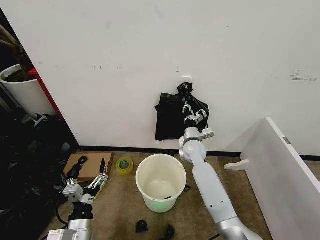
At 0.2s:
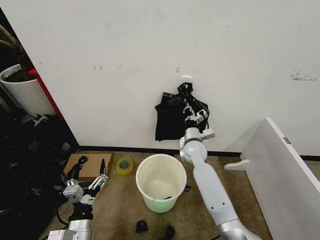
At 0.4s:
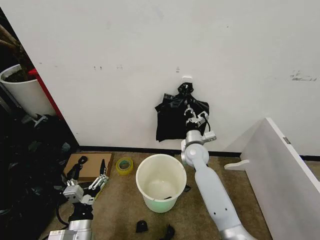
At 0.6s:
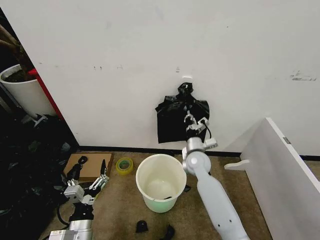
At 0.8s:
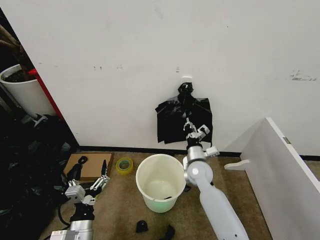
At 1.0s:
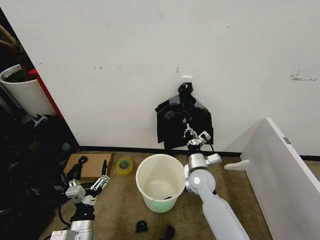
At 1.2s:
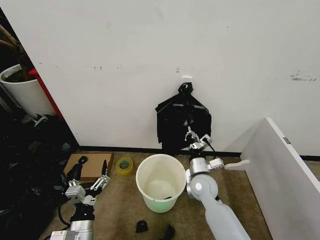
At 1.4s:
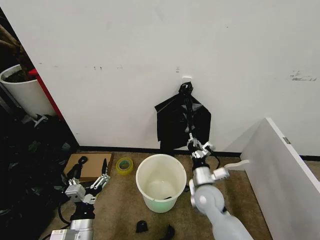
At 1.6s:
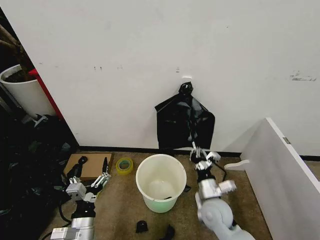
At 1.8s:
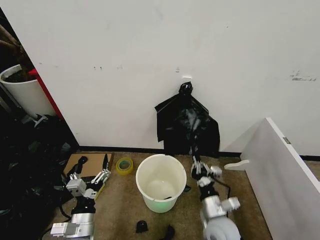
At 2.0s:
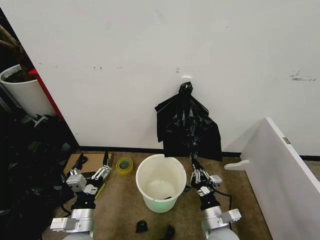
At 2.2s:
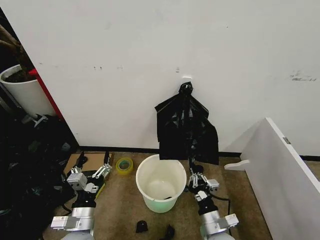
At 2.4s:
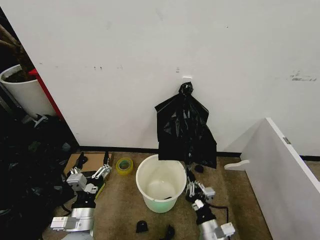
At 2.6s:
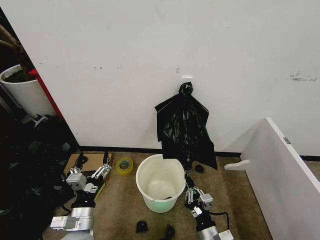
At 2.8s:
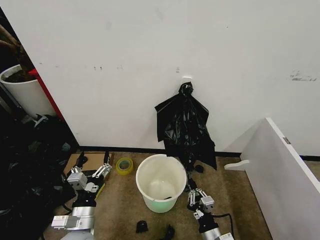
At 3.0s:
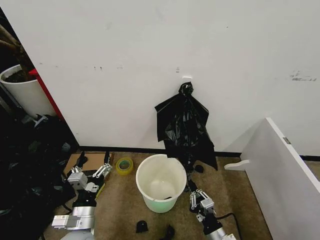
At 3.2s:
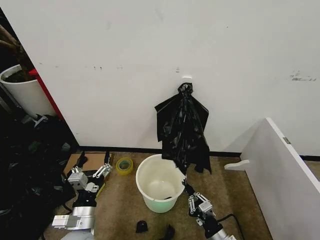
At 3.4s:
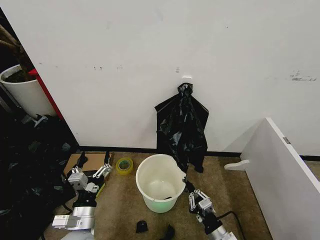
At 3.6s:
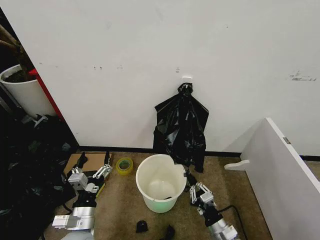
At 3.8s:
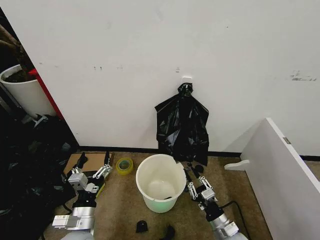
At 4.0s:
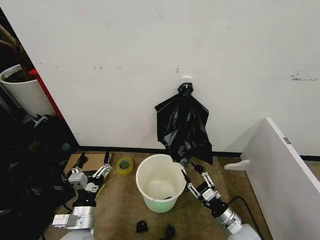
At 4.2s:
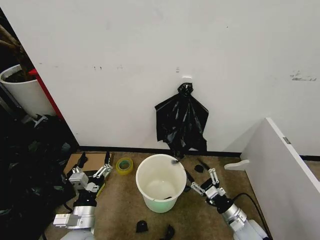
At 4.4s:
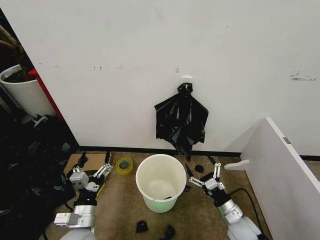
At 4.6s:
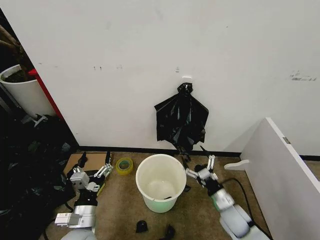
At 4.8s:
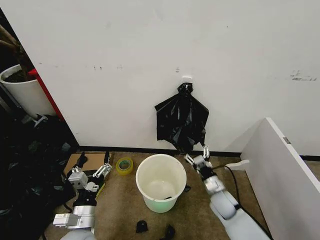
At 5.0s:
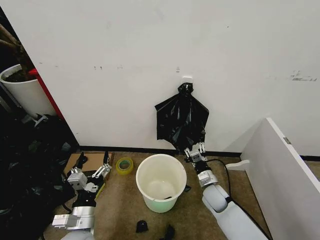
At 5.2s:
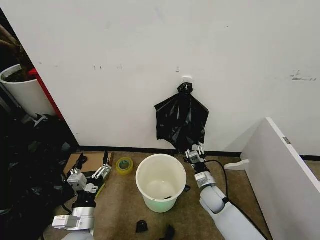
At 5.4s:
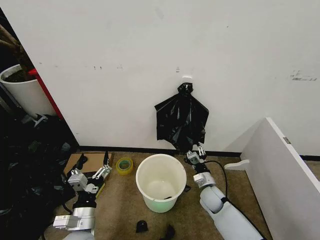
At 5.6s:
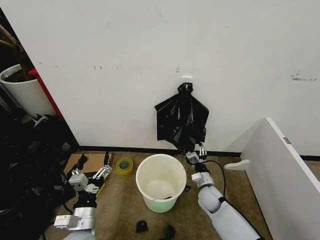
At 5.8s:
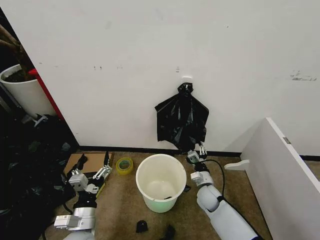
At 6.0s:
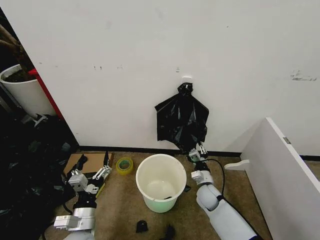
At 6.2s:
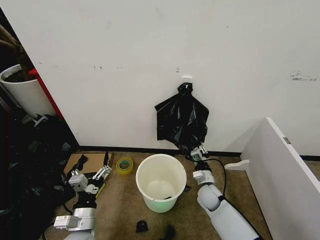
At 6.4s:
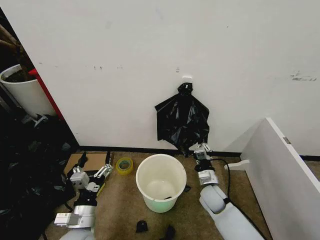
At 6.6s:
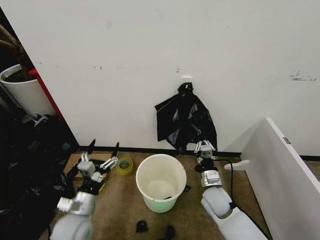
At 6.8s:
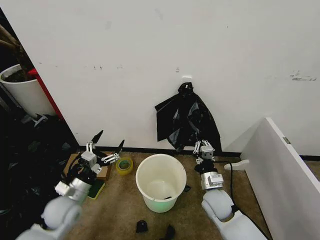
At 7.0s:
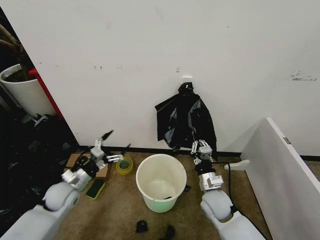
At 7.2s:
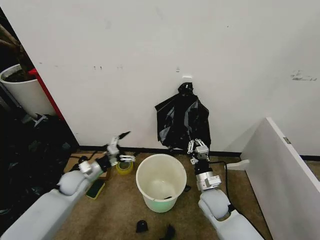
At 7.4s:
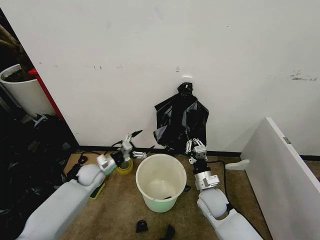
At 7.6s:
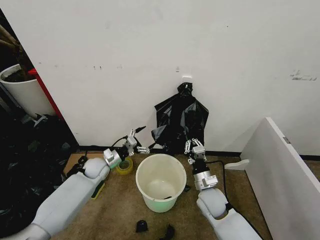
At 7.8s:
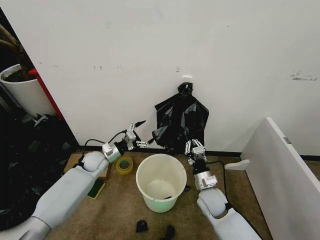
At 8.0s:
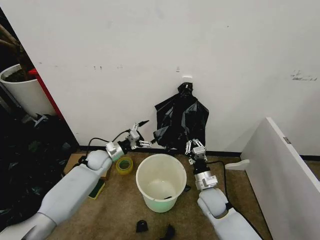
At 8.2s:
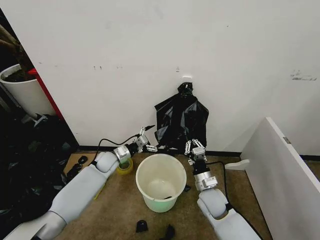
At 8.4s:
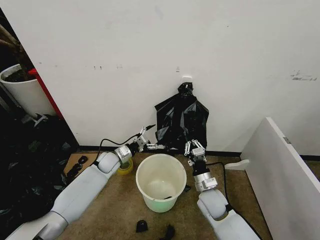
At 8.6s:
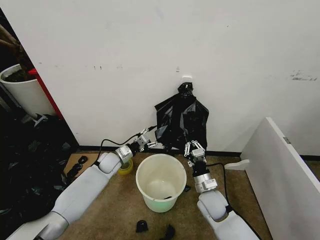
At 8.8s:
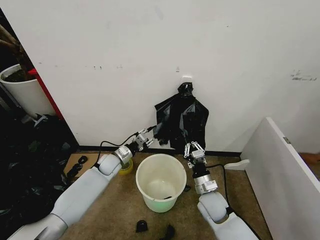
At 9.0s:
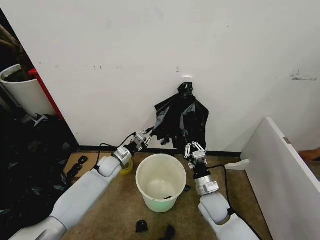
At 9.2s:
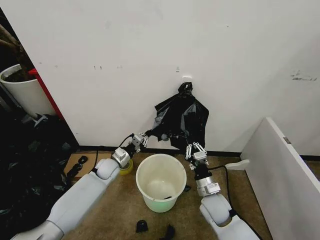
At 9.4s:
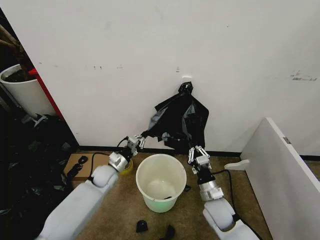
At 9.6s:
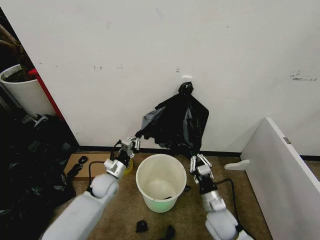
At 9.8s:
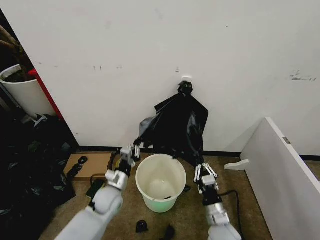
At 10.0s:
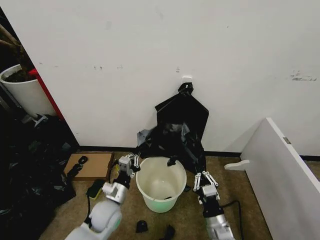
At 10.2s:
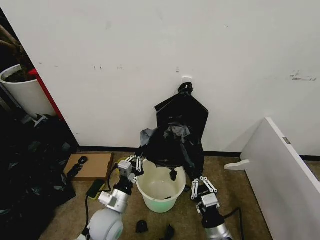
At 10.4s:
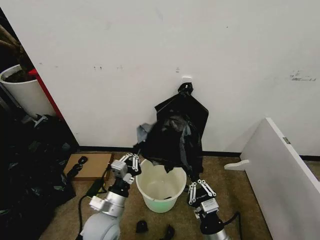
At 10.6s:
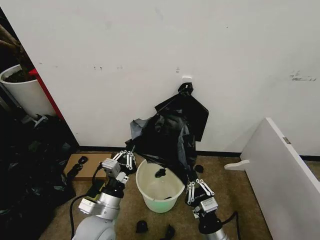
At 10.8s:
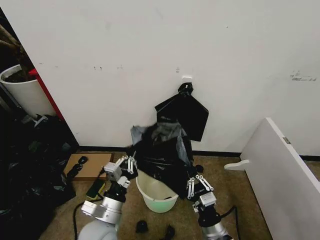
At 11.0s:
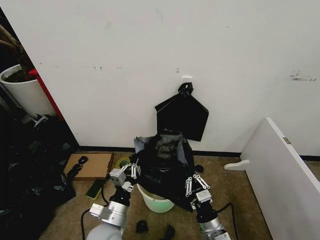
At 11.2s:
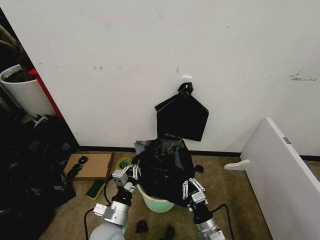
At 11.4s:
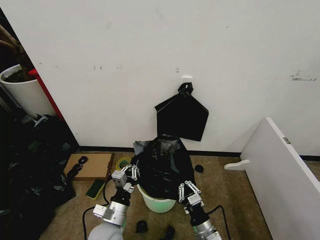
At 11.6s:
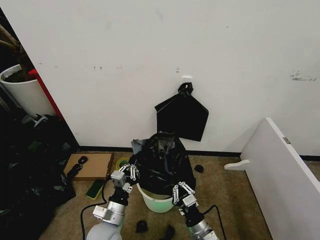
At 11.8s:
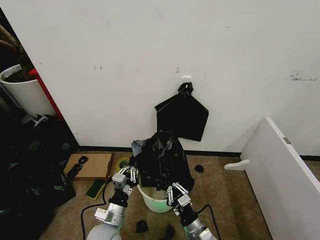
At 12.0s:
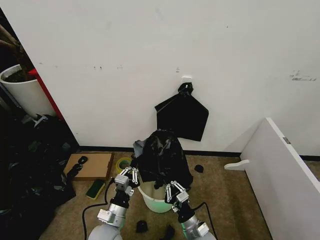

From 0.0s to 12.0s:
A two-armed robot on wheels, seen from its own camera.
Task of the whole recording: Place the garbage bag over the trash bin.
From 0.0s to 1.6s: The right gripper moves backward, about 20 cm.
From 1.6s to 3.0s: The right gripper moves backward and downward, approximately 15 cm.
From 3.0s to 4.4s: The right gripper is displaced forward and to the right by roughly 10 cm, and opens up.
From 4.4s to 6.0s: The right gripper travels forward and to the left by some 15 cm, and closes its fingers.
From 6.0s to 7.6s: The left gripper heads forward, covering about 25 cm. The right gripper moves upward, approximately 10 cm.
From 7.6s to 9.0s: The left gripper changes place by about 5 cm, and closes.
From 9.0s to 10.4s: Both grippers travel together backward, roughly 20 cm.
From 10.4s to 12.0s: The right gripper goes roughly 10 cm downward and forward. The left gripper is displaced downward by about 5 cm.

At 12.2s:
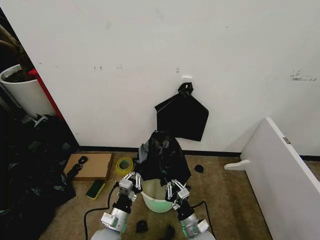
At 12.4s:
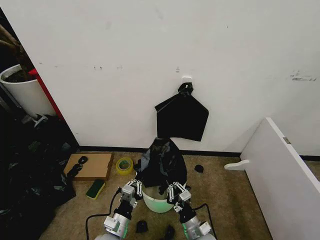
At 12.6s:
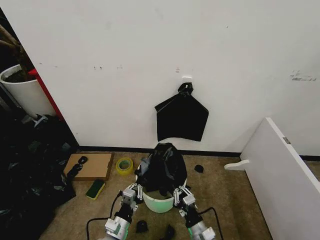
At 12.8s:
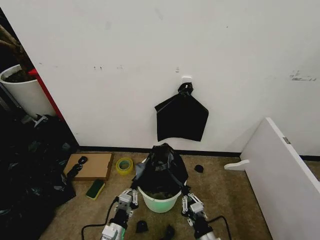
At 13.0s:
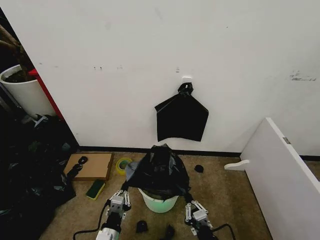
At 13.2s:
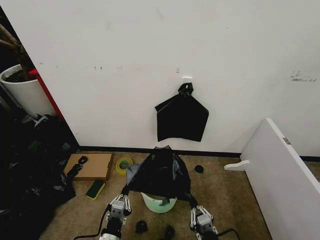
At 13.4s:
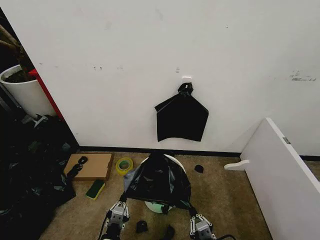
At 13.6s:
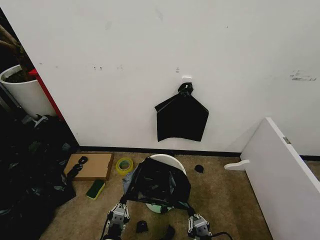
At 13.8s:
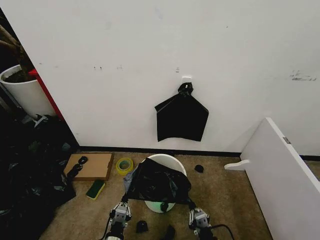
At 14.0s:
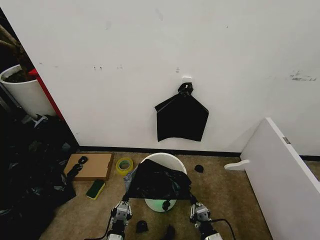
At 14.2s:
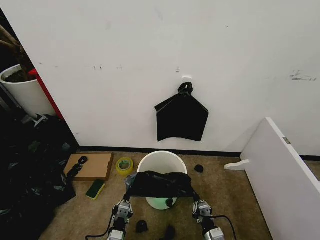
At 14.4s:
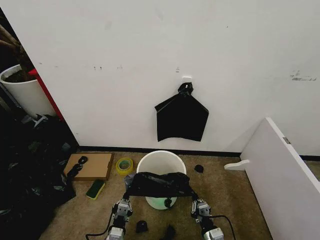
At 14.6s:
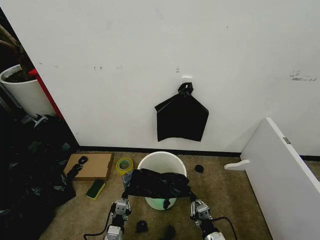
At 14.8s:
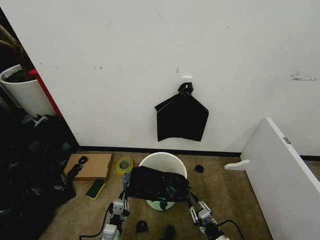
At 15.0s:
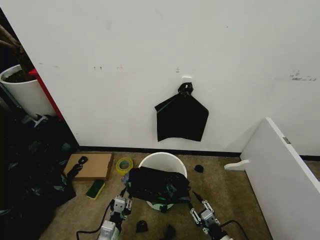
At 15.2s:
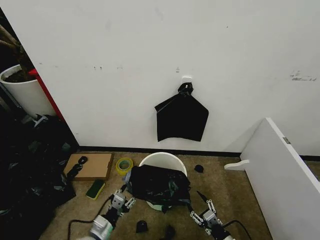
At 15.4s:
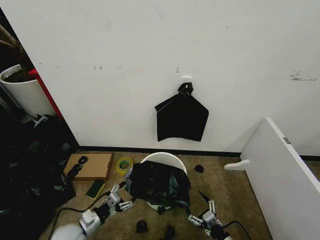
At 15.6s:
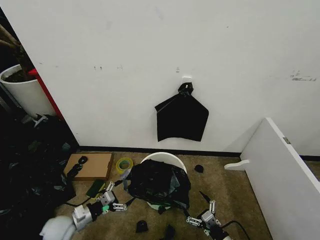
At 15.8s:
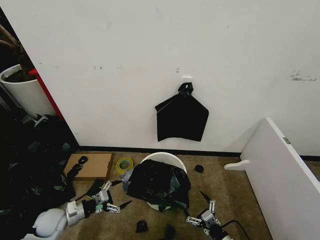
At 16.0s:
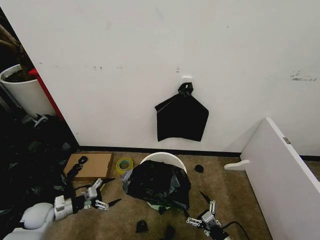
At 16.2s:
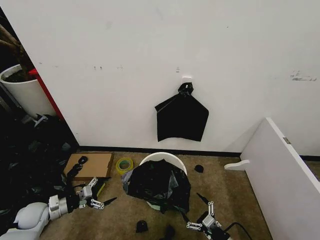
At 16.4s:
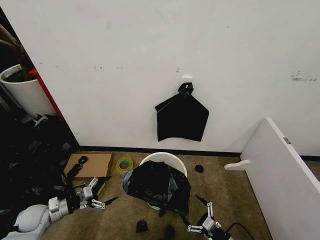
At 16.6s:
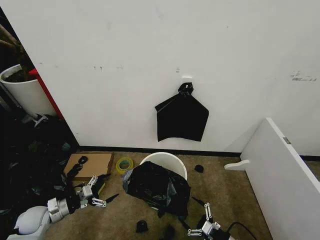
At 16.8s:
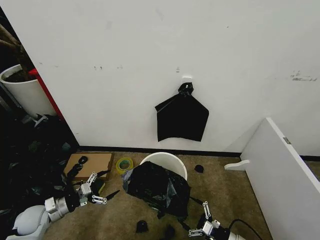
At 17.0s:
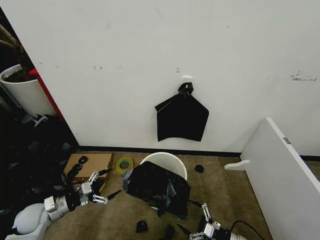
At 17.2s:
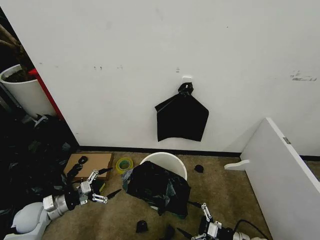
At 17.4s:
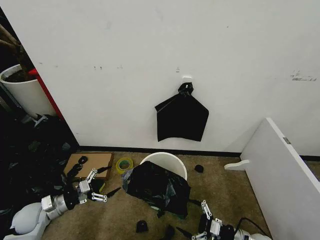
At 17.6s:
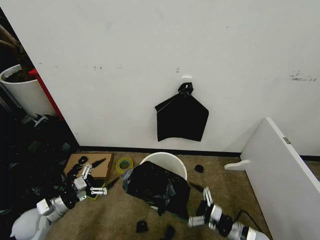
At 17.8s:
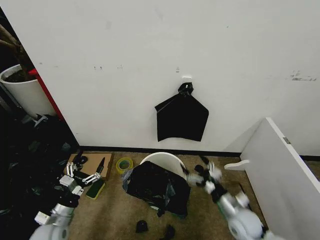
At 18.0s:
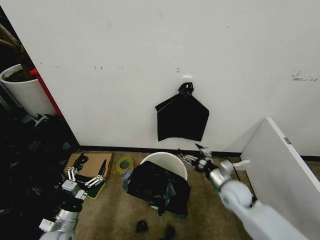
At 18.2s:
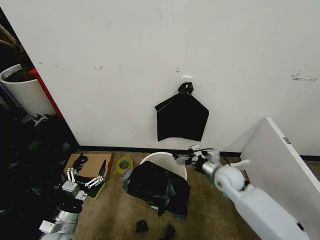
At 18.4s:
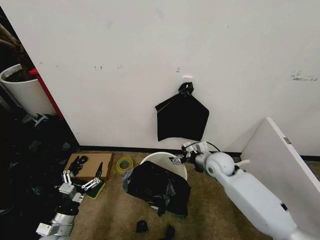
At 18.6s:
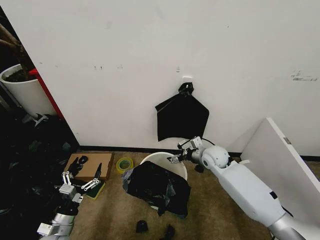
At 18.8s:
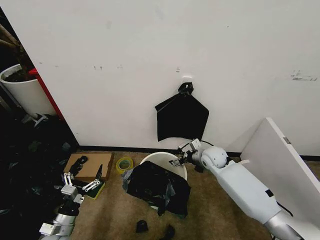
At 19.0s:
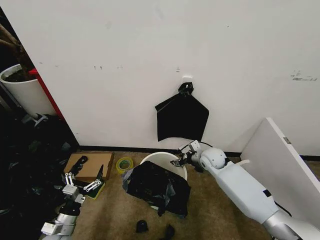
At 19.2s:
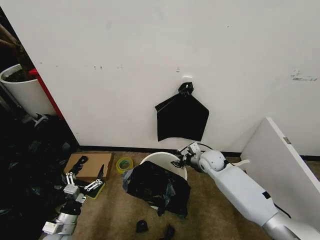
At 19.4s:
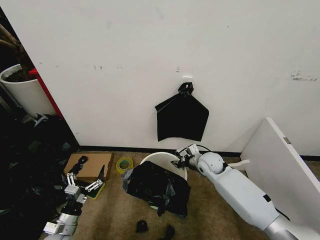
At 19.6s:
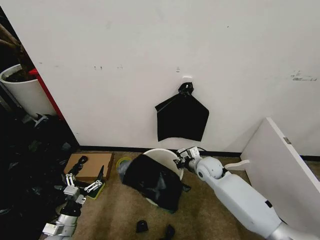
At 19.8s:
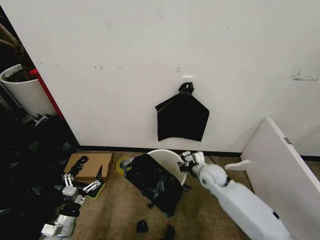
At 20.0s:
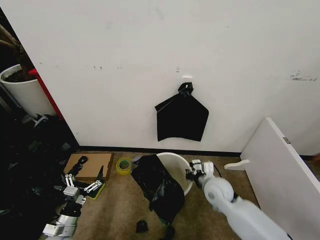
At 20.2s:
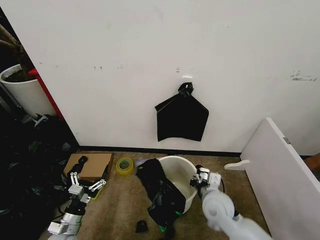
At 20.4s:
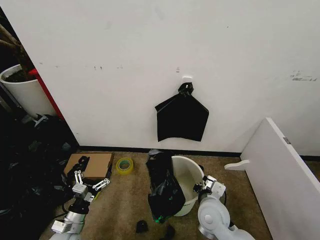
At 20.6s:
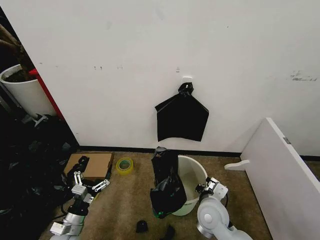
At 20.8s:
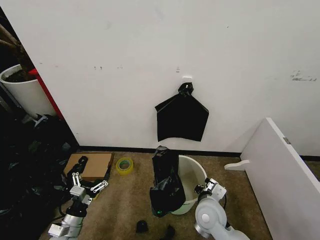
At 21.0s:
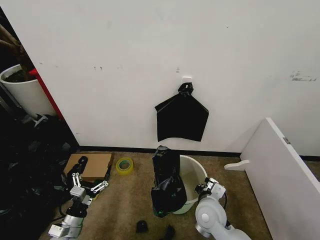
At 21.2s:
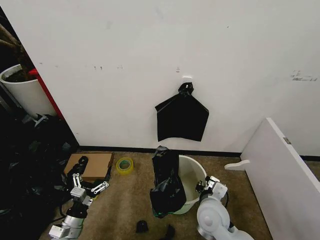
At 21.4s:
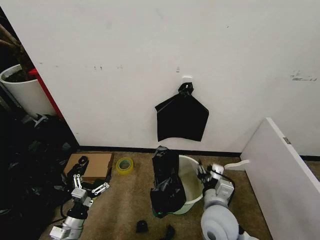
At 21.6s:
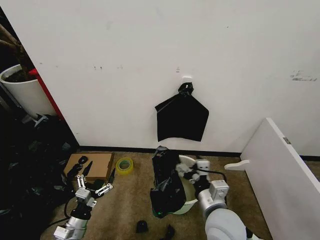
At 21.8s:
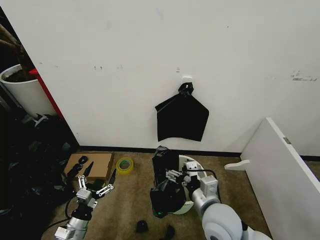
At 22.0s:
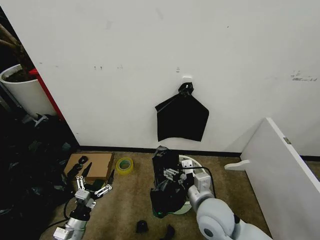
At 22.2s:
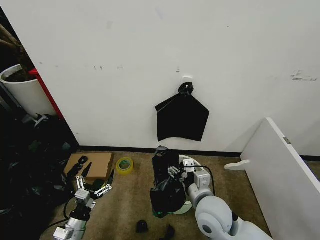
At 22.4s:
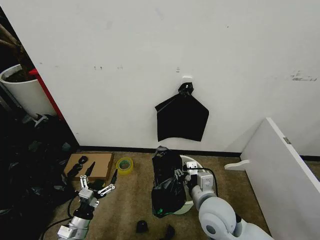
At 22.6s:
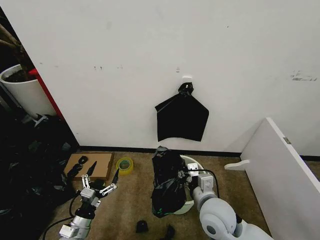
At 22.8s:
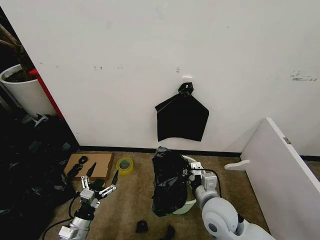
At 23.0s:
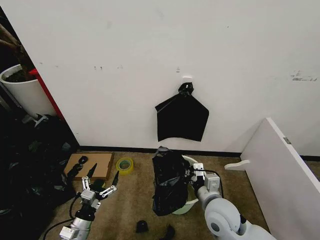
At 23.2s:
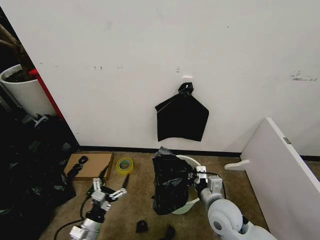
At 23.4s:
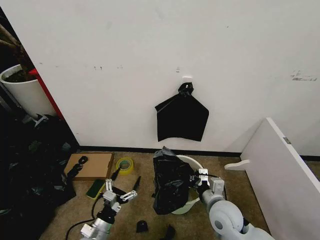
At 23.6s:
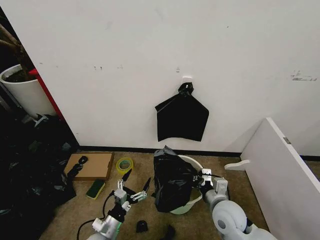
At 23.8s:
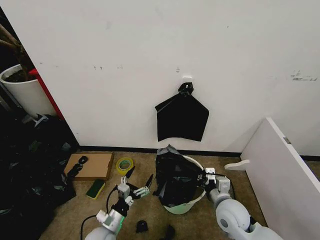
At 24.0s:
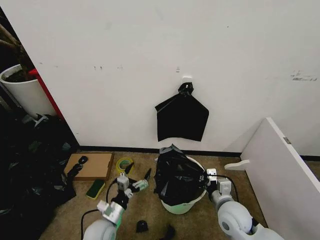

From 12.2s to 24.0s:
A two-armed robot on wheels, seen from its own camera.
Task of the whole recording: Place the garbage bag over the trash bin.
From 12.2s to 13.6s: The right gripper is displaced backward and to the right by some 15 cm. Meanwhile the left gripper shifts about 10 cm backward and downward.
From 13.6s to 15.2s: The right gripper heads to the right and forward, covering approximately 10 cm, and opens its fingers. Meanwhile the left gripper is displaced forward and to the left by roughly 10 cm, and opens its fingers.
From 15.2s to 16.6s: The right gripper moves about 5 cm, and opens up. Meanwhile the left gripper shifts about 25 cm to the left and forward, and opens.
From 16.6s to 18.2s: The right gripper heads forward and upward, covering some 30 cm, while the left gripper moves to the right and backward, about 15 cm.
From 18.2s to 19.6s: The right gripper ends up about 5 cm from where it was, and closes up.
From 19.6s to 21.0s: The right gripper is displaced backward by roughly 15 cm.
From 21.0s to 22.6s: The right gripper travels upward by some 5 cm, and opens, then closes once more.
From 22.6s to 24.0s: The left gripper shifts approximately 10 cm to the right; the right gripper is displaced to the right and downward by some 10 cm.
